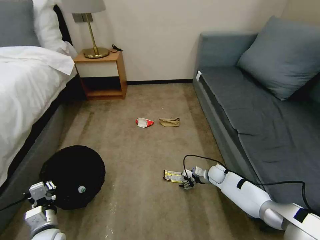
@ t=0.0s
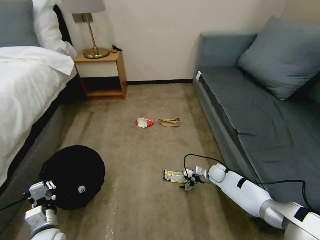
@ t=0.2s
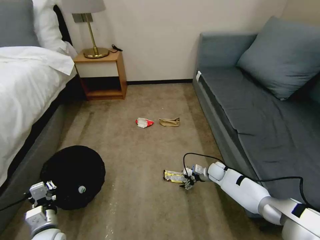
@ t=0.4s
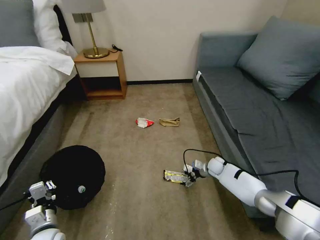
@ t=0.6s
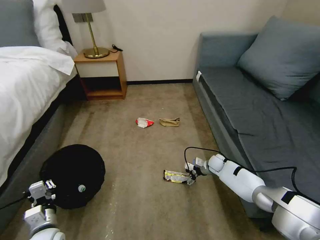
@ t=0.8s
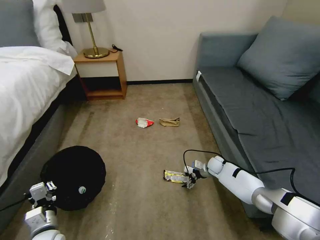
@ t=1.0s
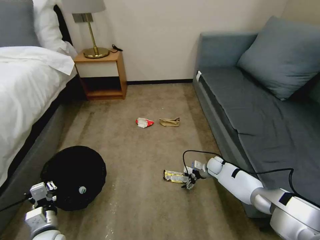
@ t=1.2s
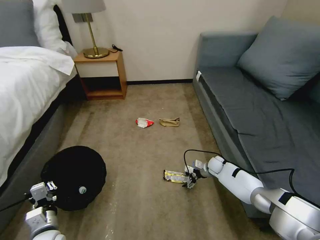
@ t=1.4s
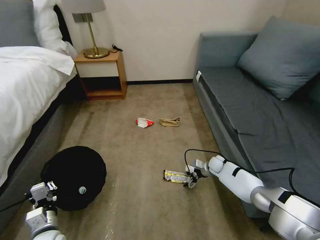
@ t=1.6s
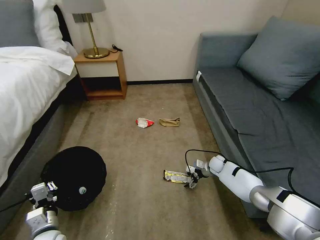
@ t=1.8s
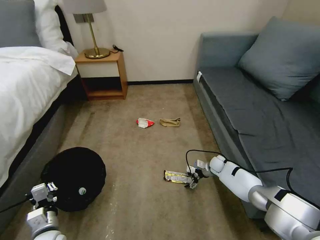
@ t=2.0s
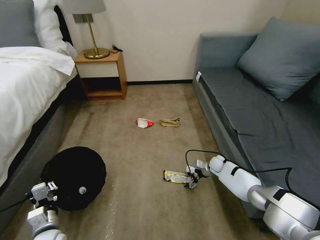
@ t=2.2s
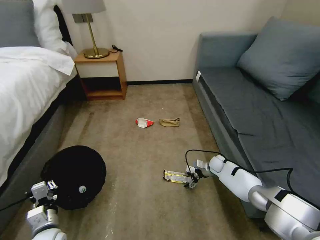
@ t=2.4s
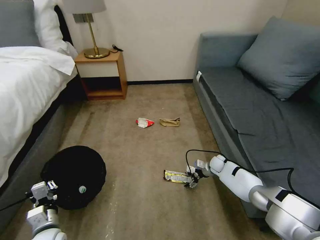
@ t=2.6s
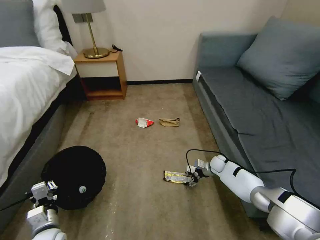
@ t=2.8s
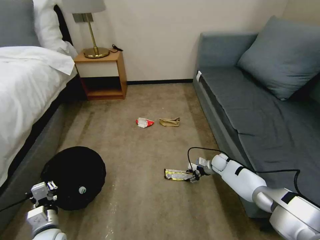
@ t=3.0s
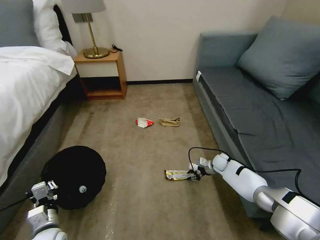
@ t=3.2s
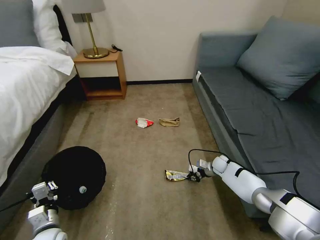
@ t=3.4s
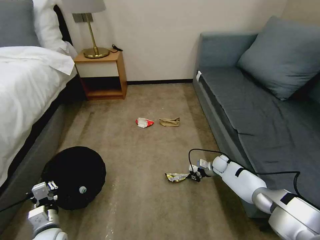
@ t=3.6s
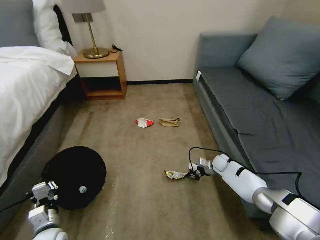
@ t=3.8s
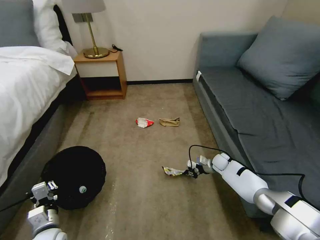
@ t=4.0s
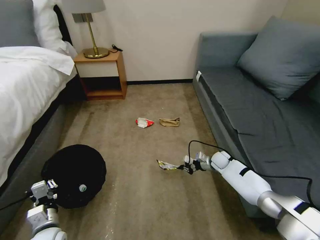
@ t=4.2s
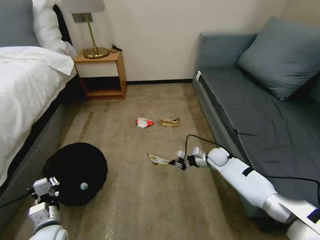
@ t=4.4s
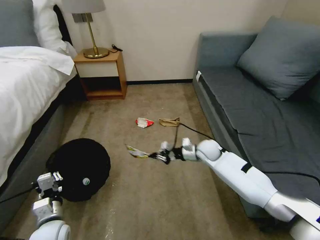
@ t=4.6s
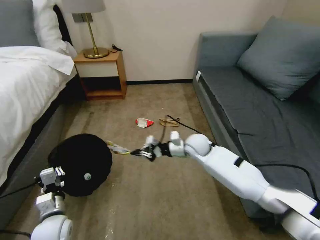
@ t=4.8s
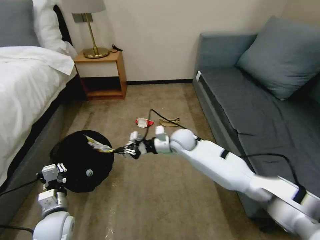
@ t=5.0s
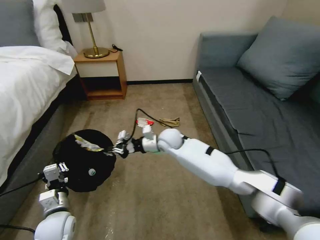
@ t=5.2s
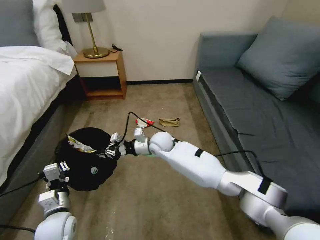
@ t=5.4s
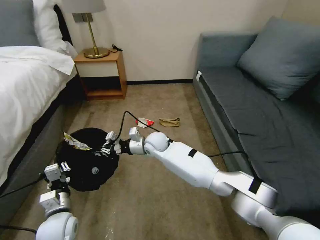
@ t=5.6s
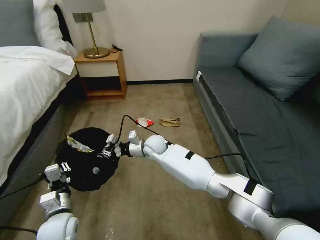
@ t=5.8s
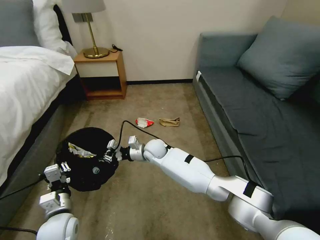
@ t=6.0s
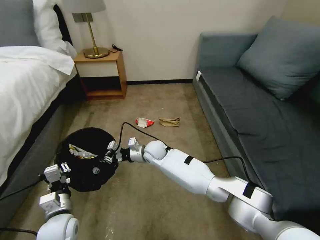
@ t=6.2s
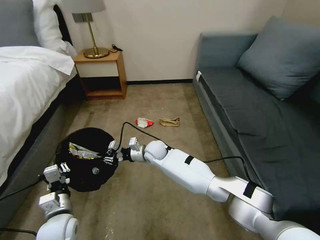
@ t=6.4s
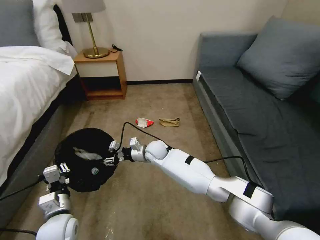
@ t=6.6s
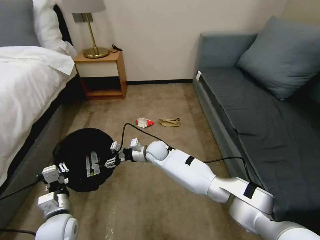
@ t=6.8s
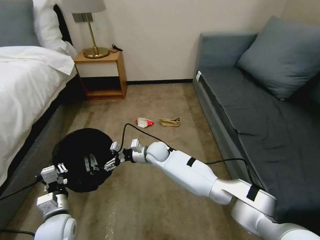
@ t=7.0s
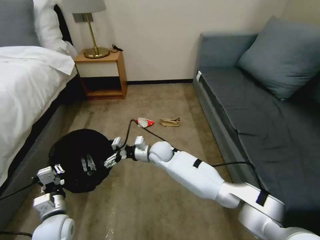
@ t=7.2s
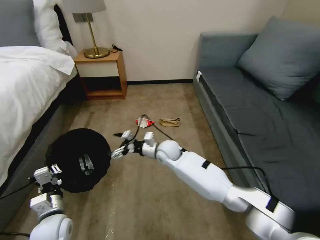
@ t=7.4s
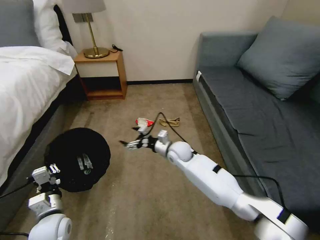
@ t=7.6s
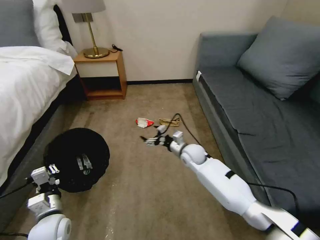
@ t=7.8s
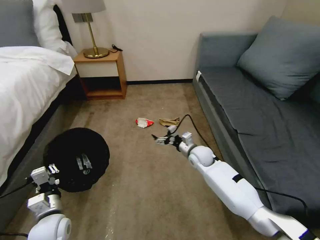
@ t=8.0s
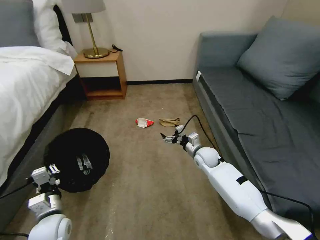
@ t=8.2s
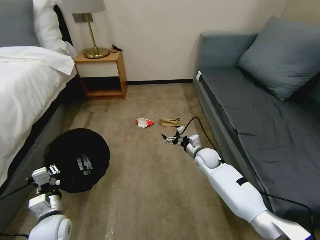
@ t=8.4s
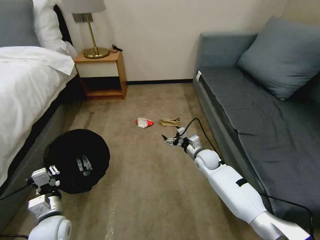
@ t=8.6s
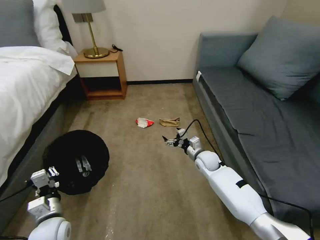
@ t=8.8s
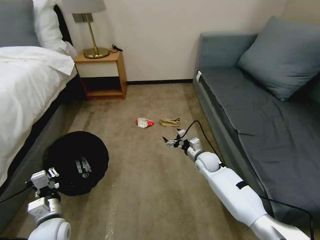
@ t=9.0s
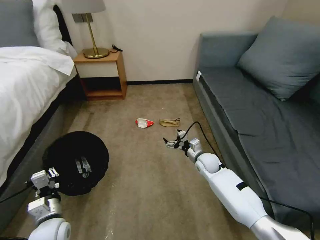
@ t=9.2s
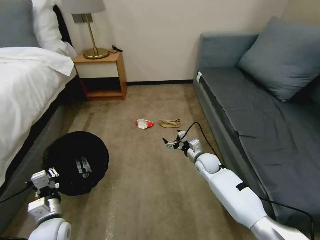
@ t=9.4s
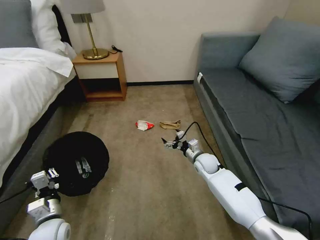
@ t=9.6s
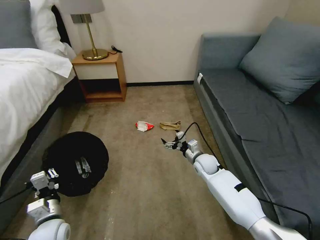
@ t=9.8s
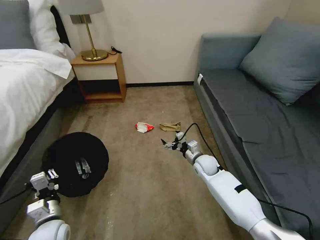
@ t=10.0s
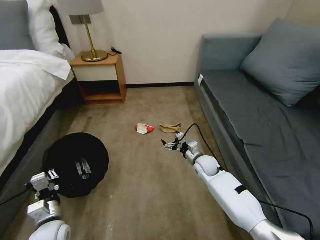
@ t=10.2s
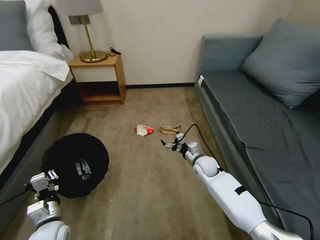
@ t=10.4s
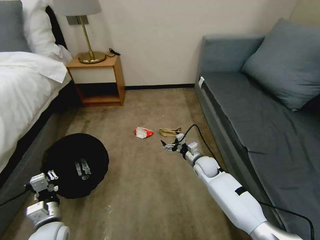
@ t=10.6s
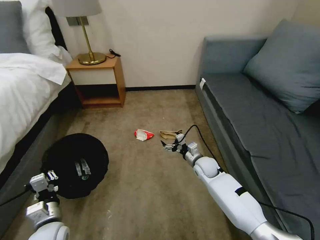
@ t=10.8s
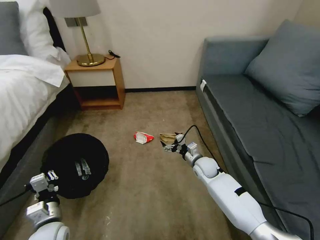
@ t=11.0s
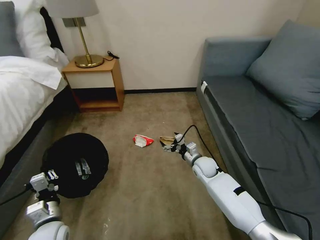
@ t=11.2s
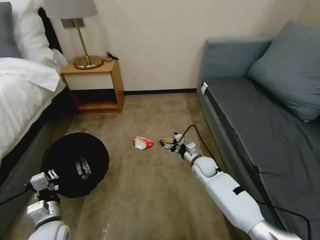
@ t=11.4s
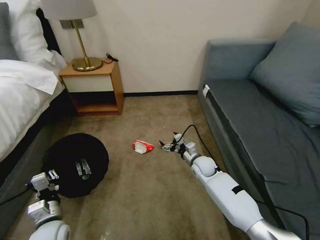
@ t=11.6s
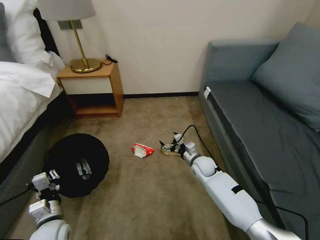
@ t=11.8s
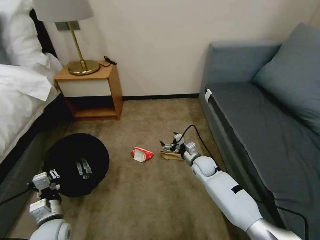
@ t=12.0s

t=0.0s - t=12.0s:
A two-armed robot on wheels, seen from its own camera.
Task of the whole recording: Pick up the trash bin, then pick up the garbage on the floor and place it into the trash bin.
t=0.0s - t=1.6s: The grippers stay close to where they were, moving slightly.
t=1.6s - t=3.0s: The right gripper closes.
t=3.0s - t=4.4s: The right gripper shifts about 5 cm upward, and closes up.
t=4.4s - t=6.0s: The right gripper moves to the left, approximately 30 cm. Meanwhile the left gripper changes place by roughly 5 cm.
t=6.0s - t=7.6s: The right gripper shifts approximately 10 cm to the right, and opens up.
t=7.6s - t=9.0s: The right gripper goes some 15 cm to the right and downward.
t=9.0s - t=10.4s: The grippers stay close to where they were, moving slightly.

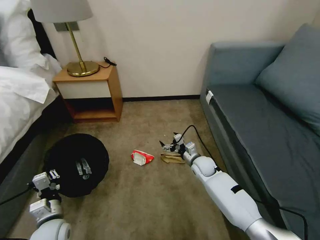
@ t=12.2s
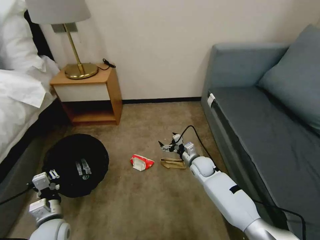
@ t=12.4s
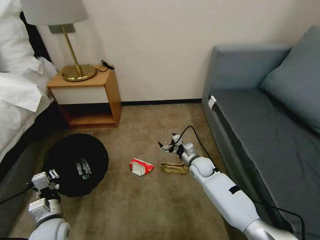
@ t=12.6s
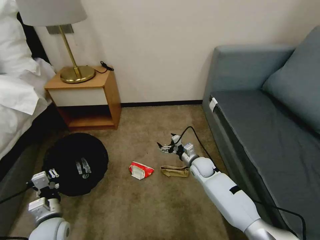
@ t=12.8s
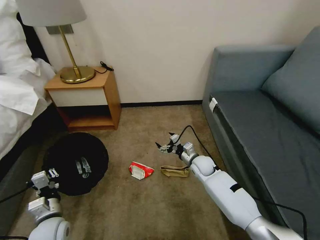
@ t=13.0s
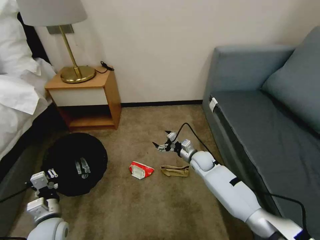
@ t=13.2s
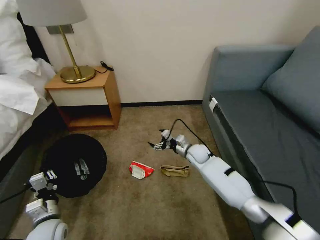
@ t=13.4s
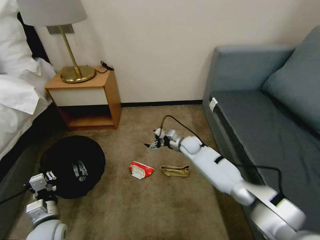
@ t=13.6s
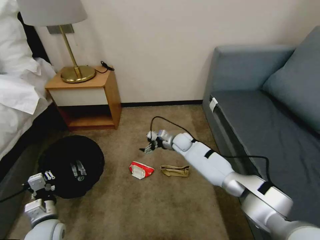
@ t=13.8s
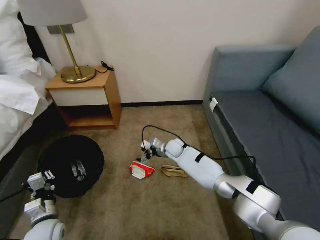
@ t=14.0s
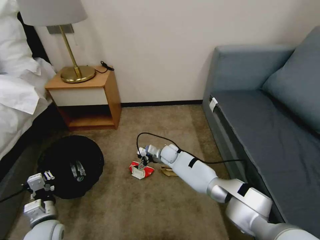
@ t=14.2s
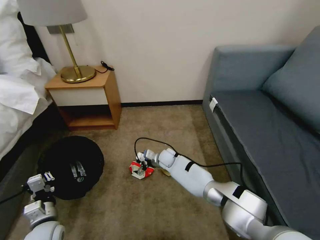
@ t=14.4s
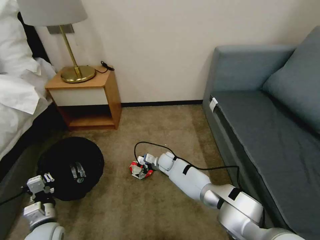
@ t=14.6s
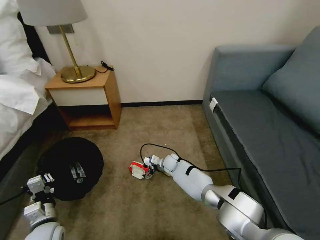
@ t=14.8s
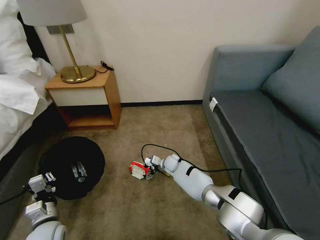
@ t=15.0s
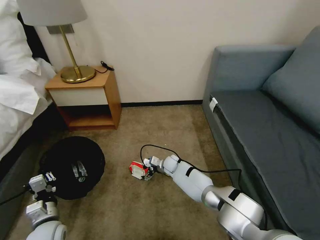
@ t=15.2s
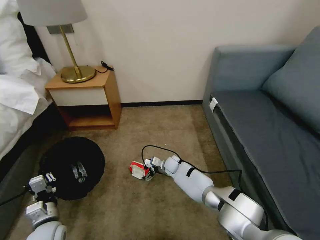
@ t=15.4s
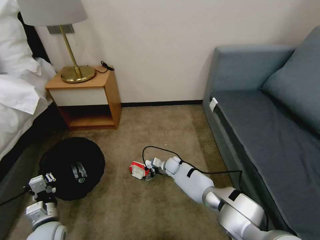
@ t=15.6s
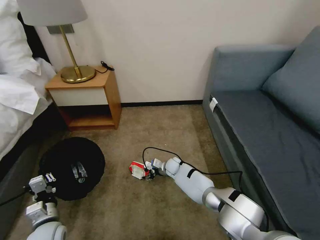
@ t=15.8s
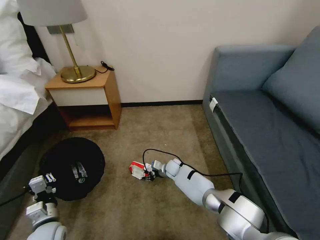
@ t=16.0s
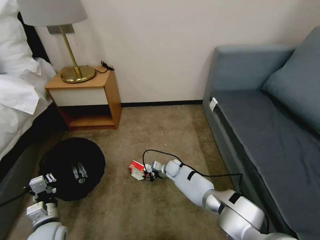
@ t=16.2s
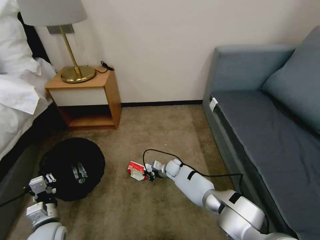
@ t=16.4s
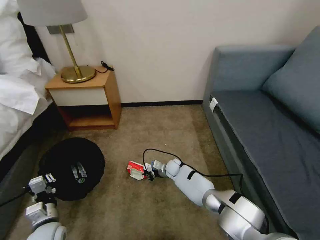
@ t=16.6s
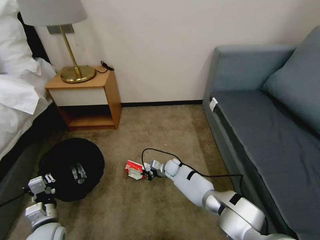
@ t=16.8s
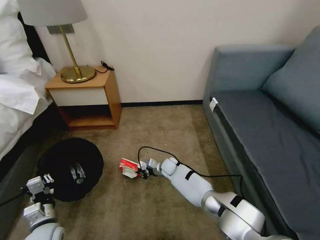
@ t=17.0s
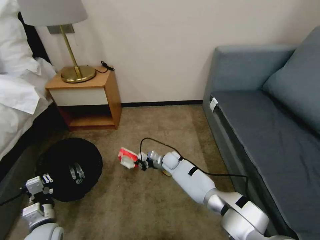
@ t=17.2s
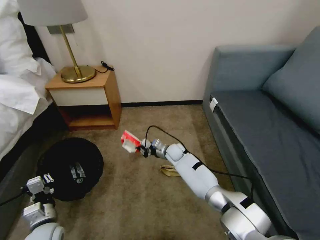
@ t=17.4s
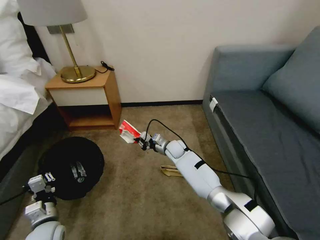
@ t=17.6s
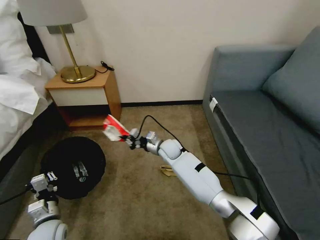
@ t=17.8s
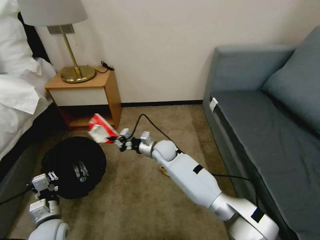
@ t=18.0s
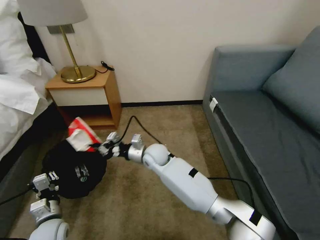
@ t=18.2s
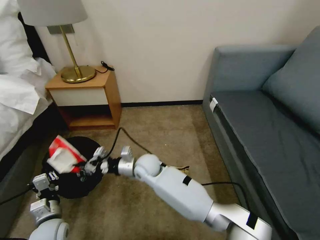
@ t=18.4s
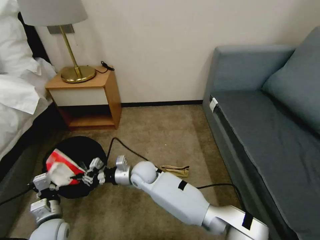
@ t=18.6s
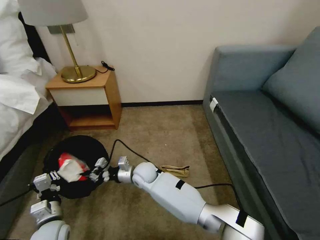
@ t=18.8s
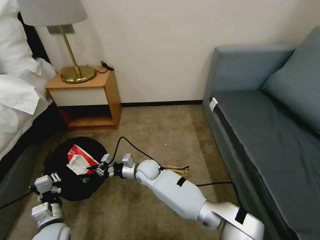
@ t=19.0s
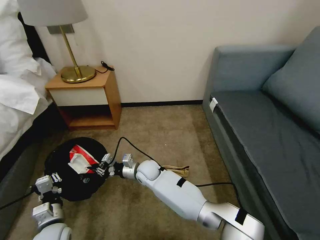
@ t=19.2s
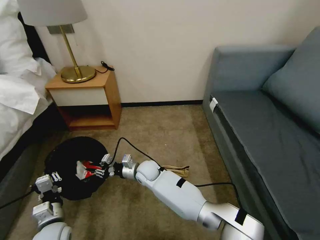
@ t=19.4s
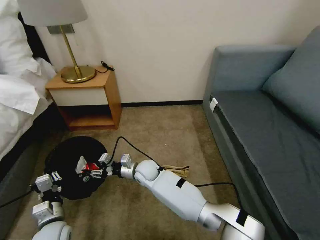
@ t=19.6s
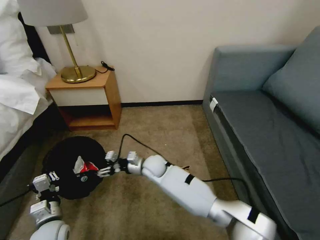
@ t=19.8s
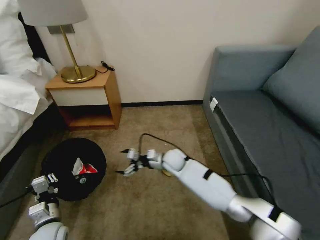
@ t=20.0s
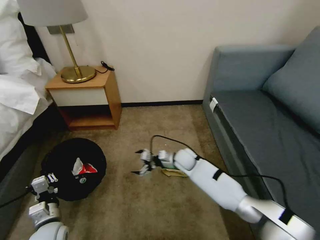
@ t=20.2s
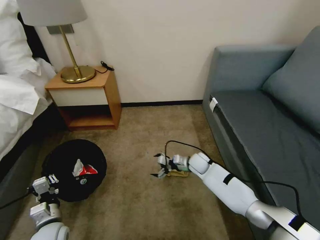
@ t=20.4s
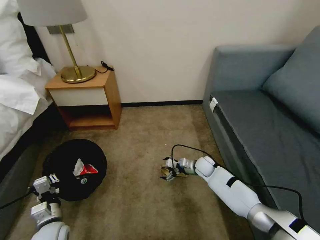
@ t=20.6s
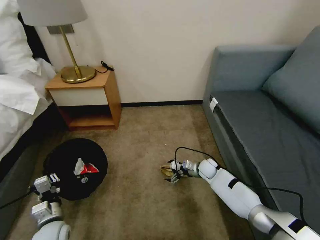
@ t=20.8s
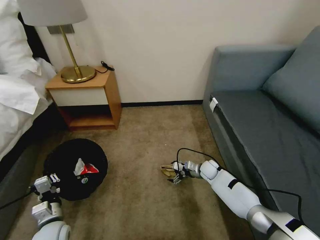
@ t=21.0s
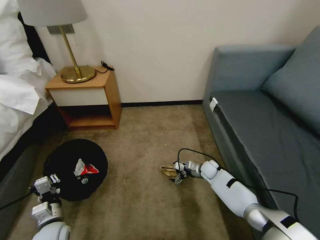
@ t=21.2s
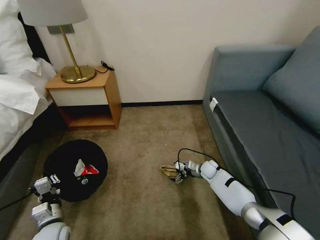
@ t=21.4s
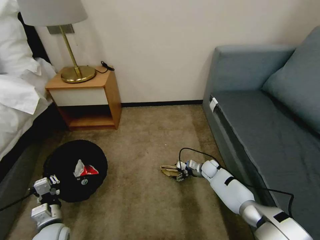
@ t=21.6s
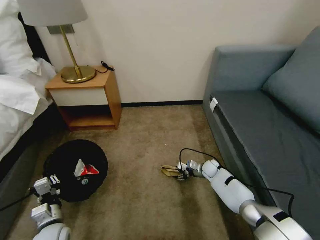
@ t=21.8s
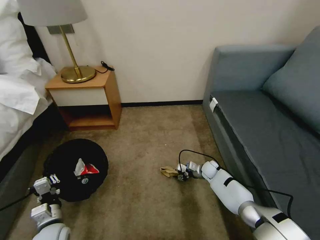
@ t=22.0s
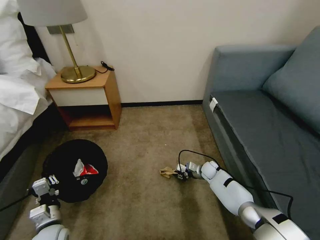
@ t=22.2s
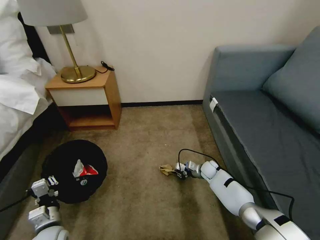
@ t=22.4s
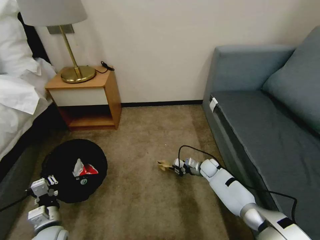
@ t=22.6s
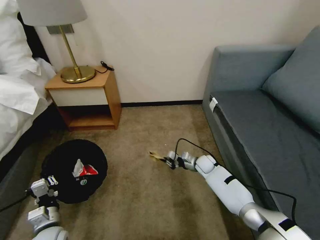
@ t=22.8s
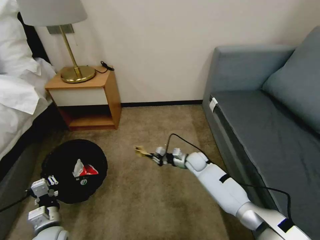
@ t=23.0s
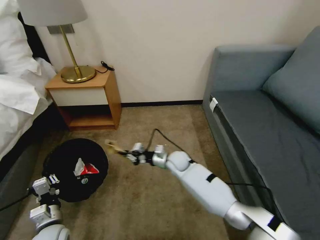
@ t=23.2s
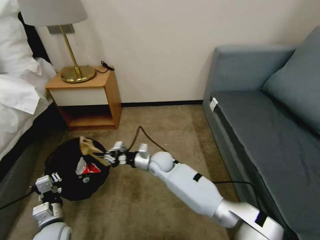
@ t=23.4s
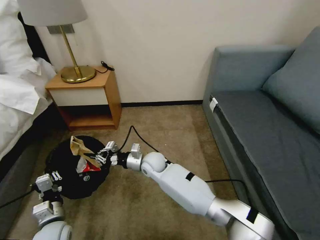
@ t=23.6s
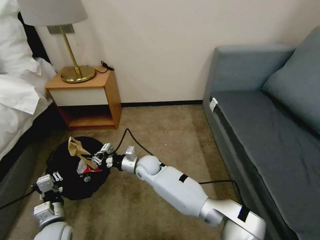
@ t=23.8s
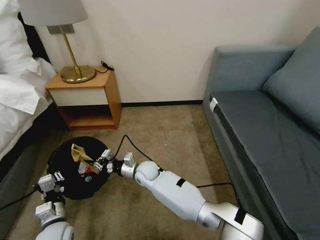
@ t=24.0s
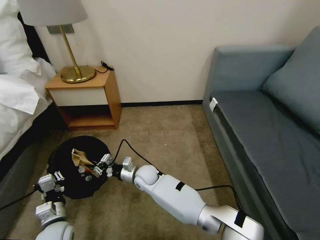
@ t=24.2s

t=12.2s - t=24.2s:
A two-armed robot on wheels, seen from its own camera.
Task of the whole recording: Pick up the trash bin, then pick up the garbage on the floor and place it into the trash bin.
t=12.2s - t=13.8s: The right gripper is displaced forward and to the left by about 15 cm.
t=13.8s - t=15.2s: The right gripper travels downward and to the left by some 15 cm.
t=15.2s - t=16.6s: The right gripper closes its fingers.
t=16.6s - t=18.2s: The right gripper is displaced upward and to the left by about 20 cm.
t=18.2s - t=19.8s: The right gripper goes about 5 cm downward, and opens up.
t=19.8s - t=21.2s: The right gripper travels to the right and downward by about 30 cm.
t=21.2s - t=22.6s: The right gripper closes up.
t=22.6s - t=24.2s: The right gripper travels to the left by about 30 cm.
